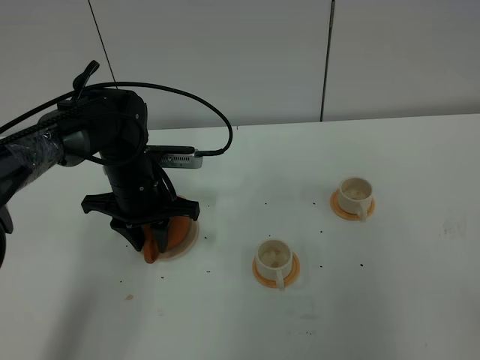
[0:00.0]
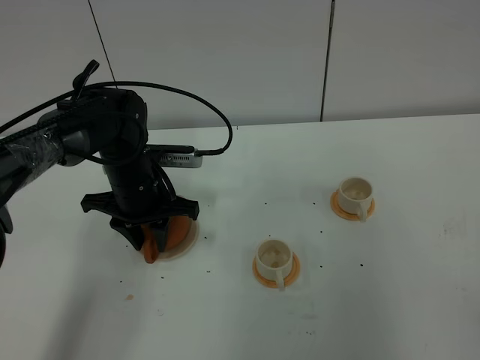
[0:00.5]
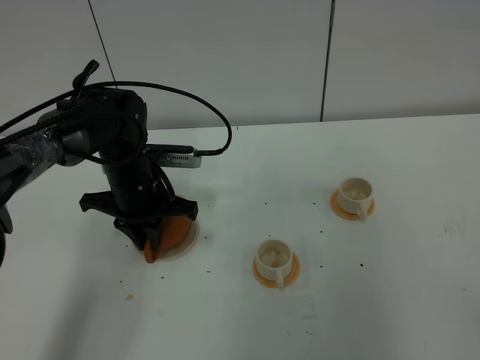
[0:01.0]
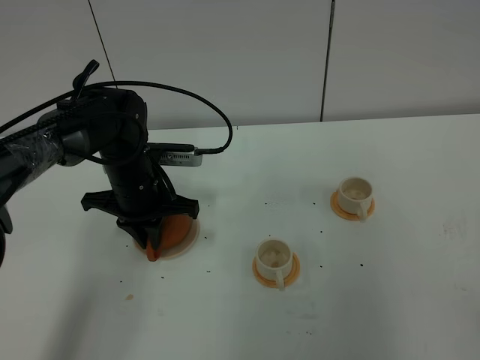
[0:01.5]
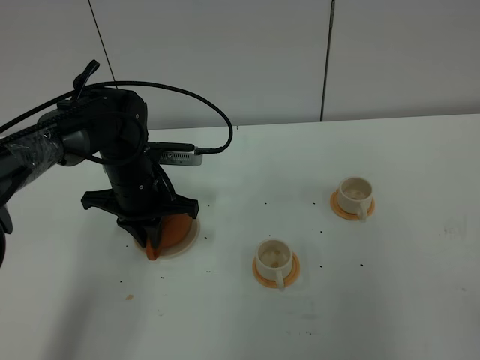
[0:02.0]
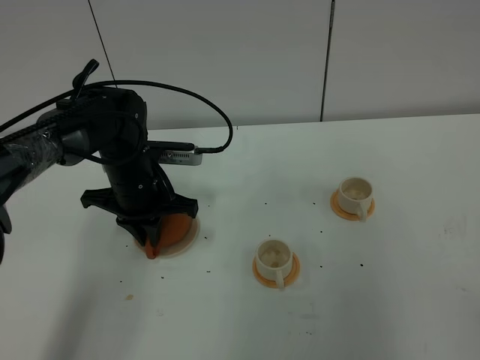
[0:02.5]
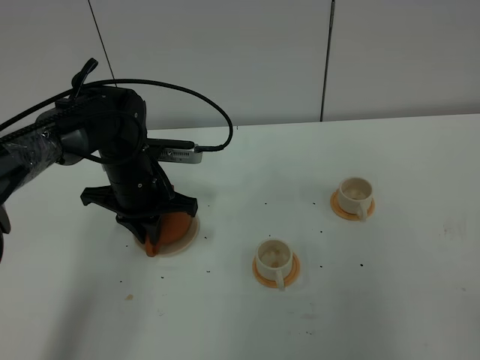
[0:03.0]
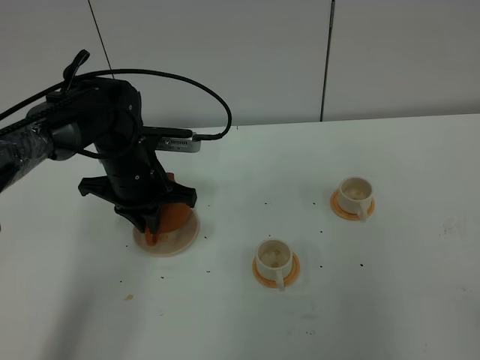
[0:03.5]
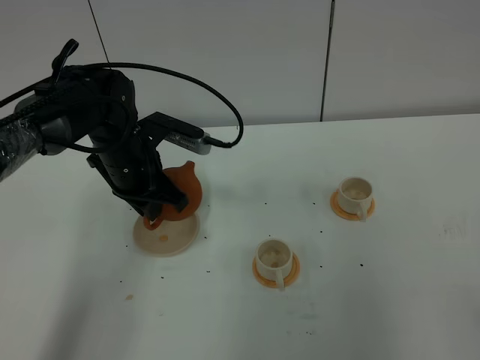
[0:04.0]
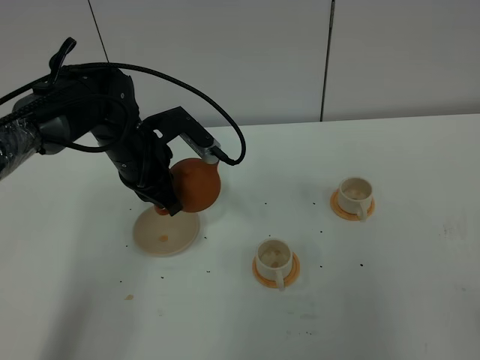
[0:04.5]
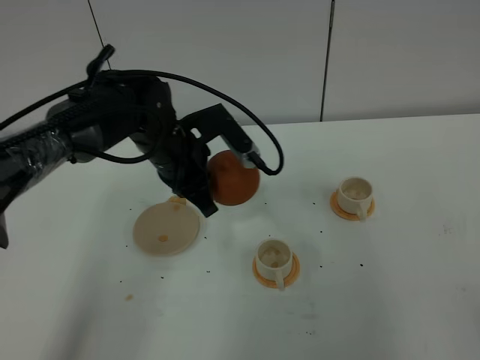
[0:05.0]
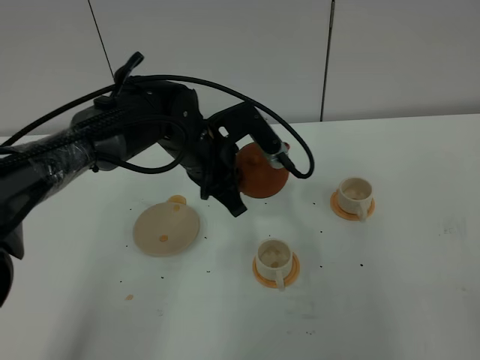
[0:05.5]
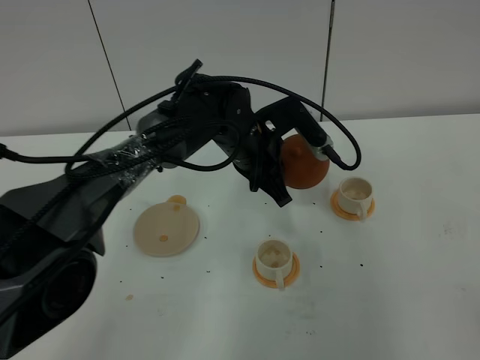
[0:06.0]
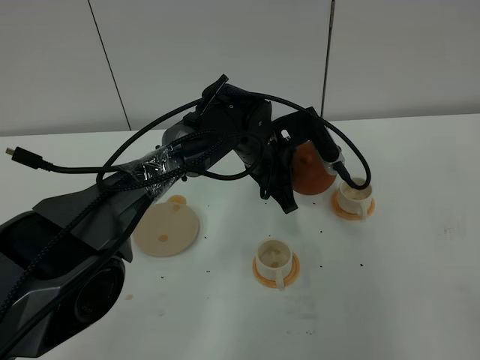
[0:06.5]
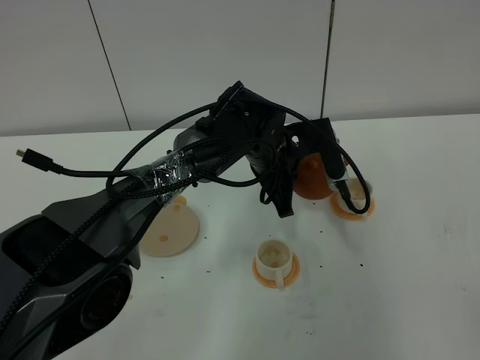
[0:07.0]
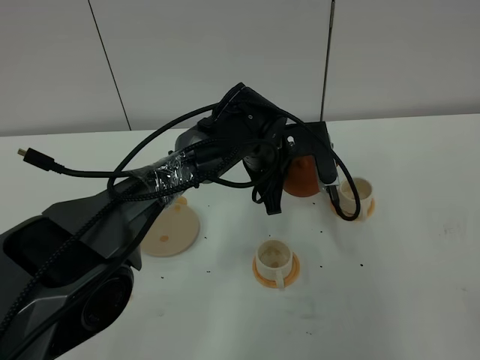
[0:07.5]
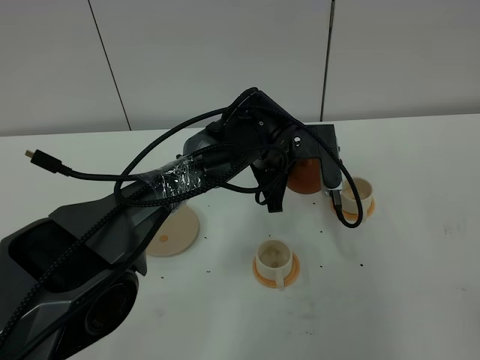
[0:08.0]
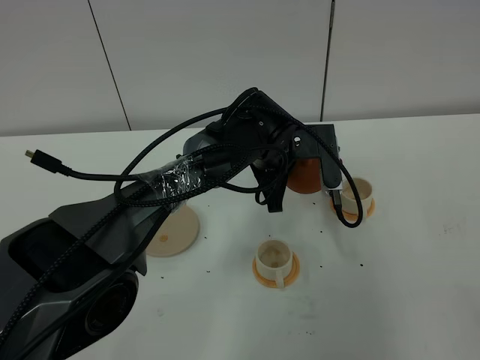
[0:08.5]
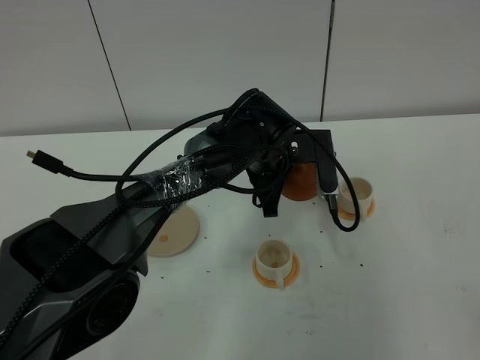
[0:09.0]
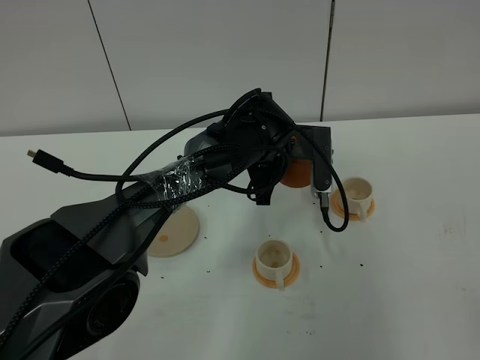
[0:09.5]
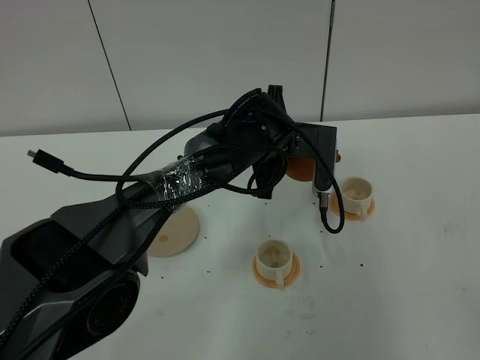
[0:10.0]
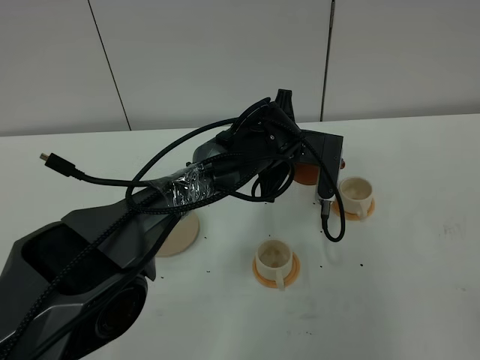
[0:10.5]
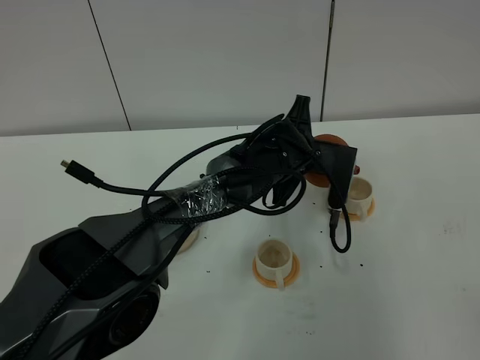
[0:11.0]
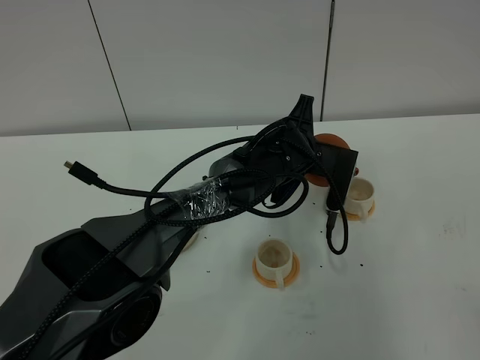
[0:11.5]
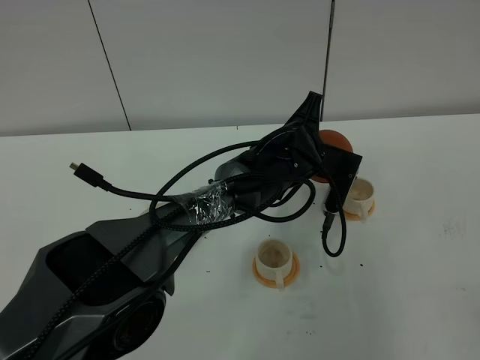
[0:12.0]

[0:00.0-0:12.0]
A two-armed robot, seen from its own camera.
Task of the whole recording: grasp the brown teapot and pour the tea into the two white teacups one by one, put the brown teapot back in its original place.
Step, 0:00.0 to 0:03.5: Pick up the teapot with the left gripper.
0:00.0 to 0:02.0: The left gripper closes up.
0:04.0 to 0:06.0: The left gripper is displaced to the right by about 15 cm.
0:08.0 to 0:10.0: The grippers stay close to where they were, moving slightly.
0:10.0 to 0:12.0: There are only small adjustments of the grippers.

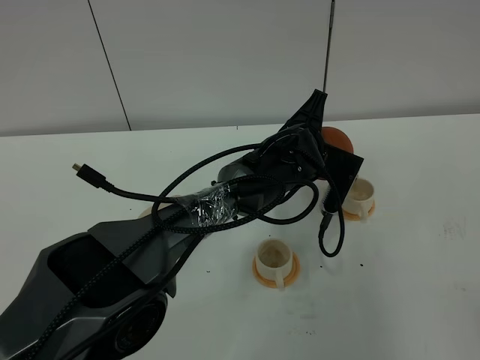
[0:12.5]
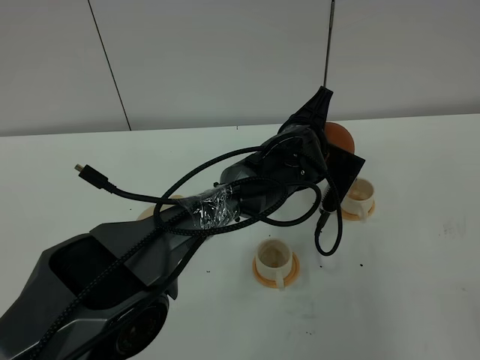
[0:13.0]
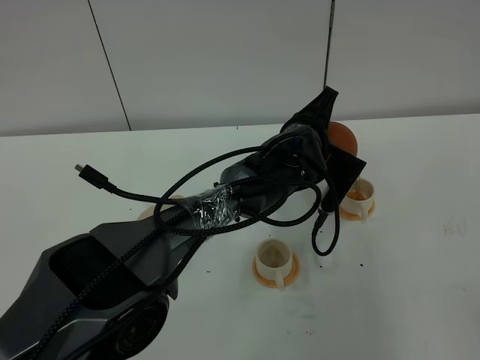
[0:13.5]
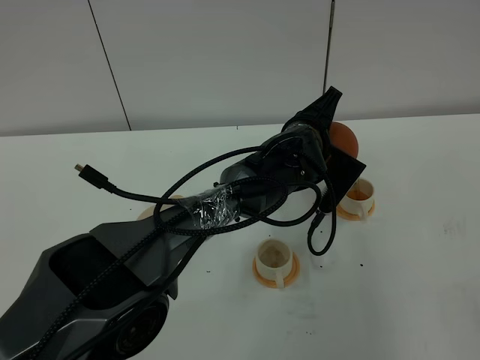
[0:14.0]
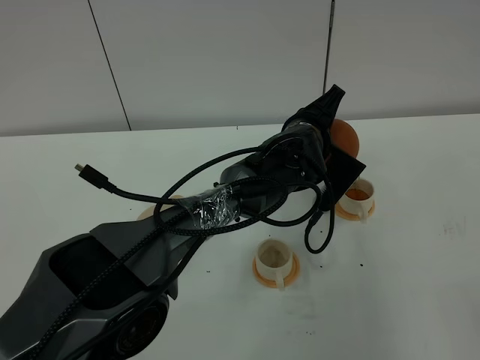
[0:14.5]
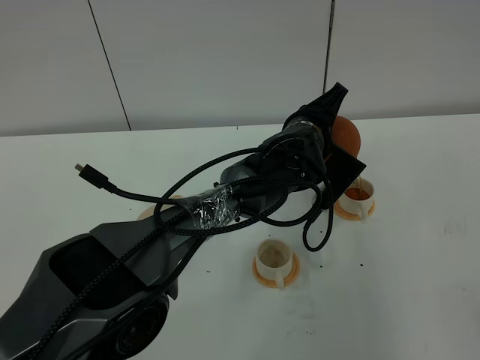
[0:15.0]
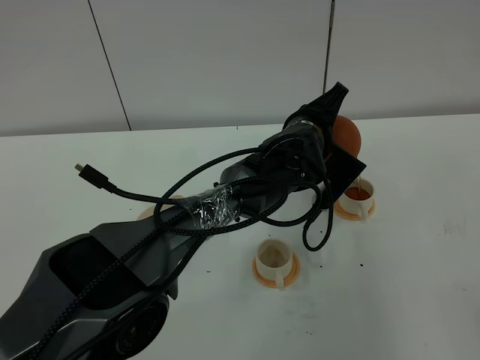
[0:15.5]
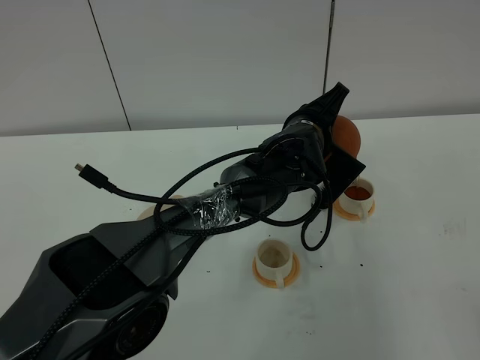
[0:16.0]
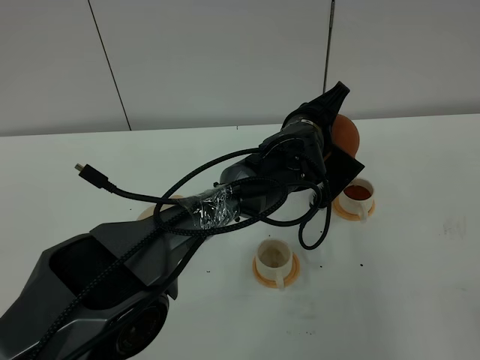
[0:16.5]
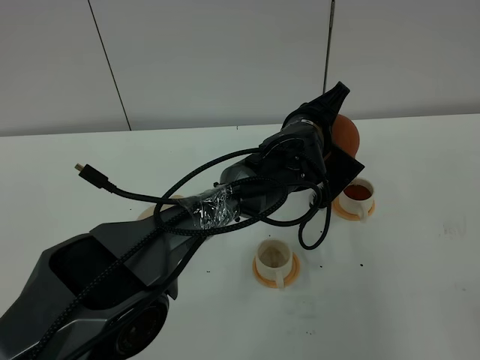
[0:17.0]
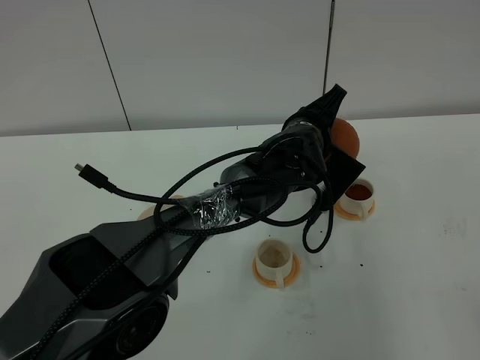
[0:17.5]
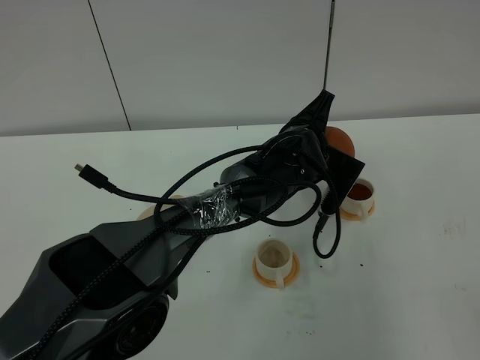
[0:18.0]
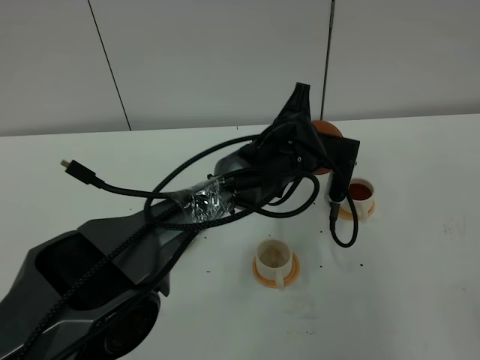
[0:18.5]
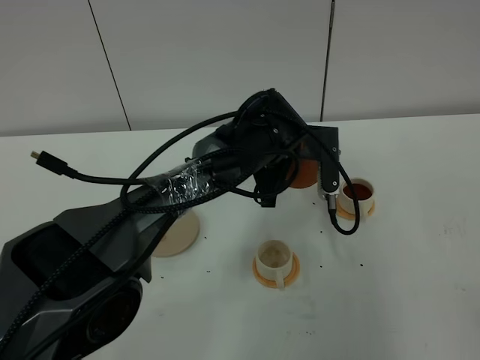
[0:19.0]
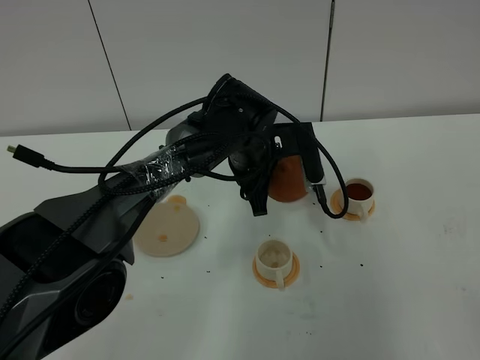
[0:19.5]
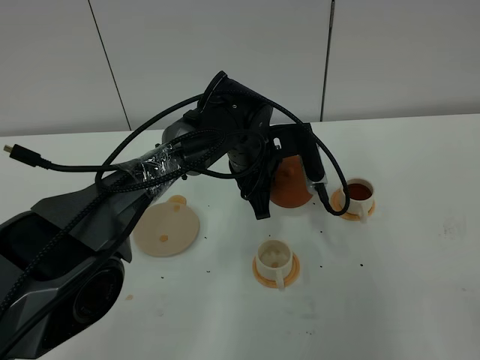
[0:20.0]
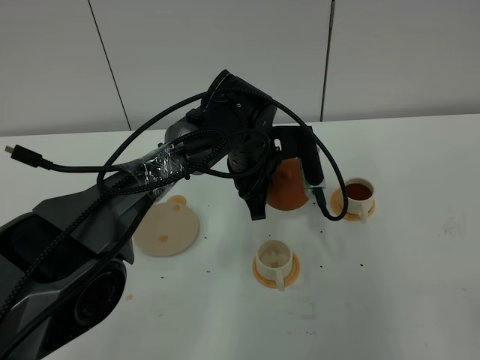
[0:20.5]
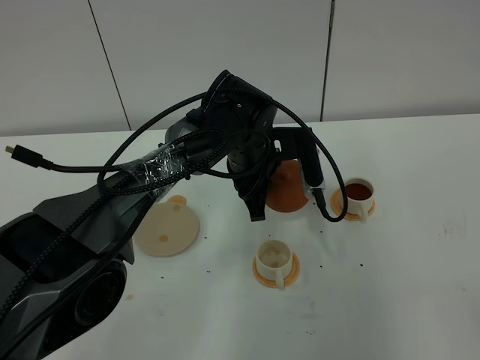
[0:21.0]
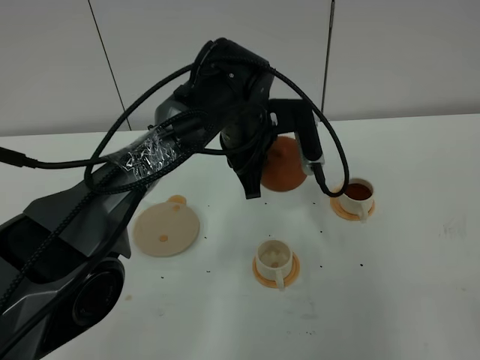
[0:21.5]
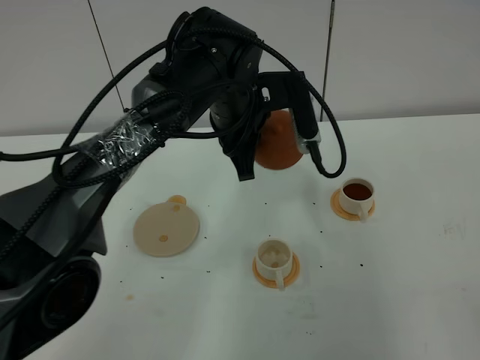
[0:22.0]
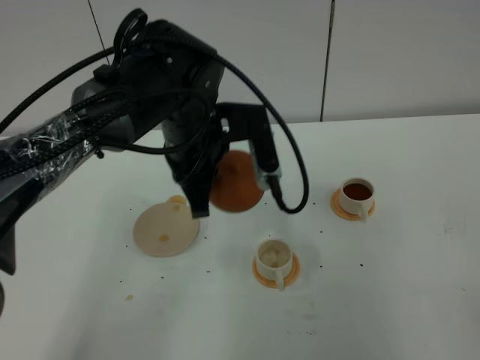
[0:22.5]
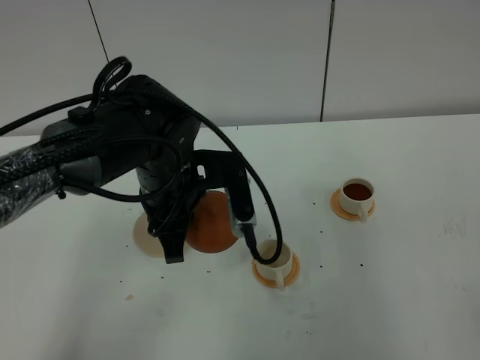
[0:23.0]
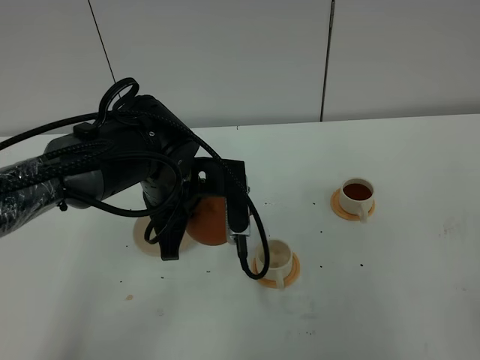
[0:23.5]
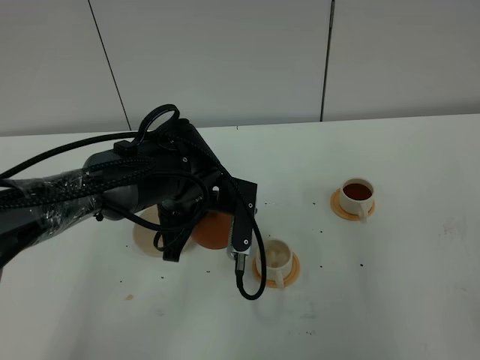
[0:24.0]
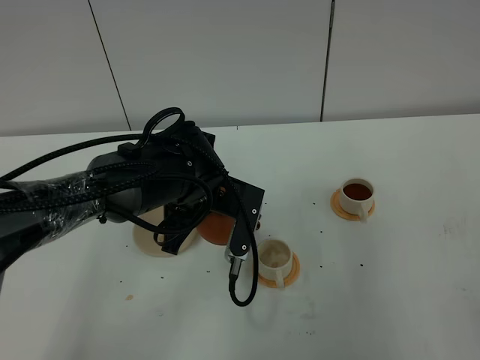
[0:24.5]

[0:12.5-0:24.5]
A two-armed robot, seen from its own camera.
Task of the whole recording: grasp the brown teapot and pour the tea into the two white teacups one by one, put the brown teapot back in its original place.
0:12.5 to 0:14.5: There are only small adjustments of the grippers.
0:14.5 to 0:16.5: Both grippers stay about where they are.
0:18.5 to 0:20.5: The left gripper goes about 5 cm to the left.
0:20.5 to 0:22.5: The left gripper is displaced upward, backward and to the left by roughly 10 cm.
0:22.5 to 0:24.5: The left gripper shifts about 5 cm downward.

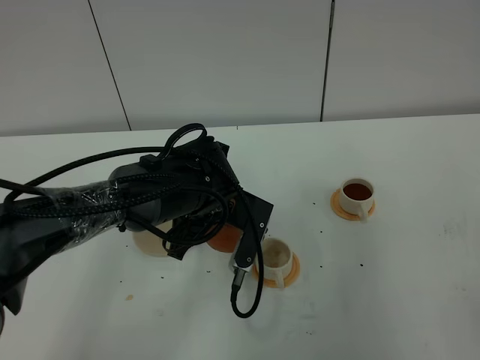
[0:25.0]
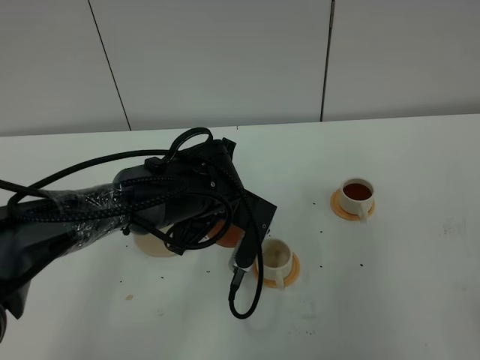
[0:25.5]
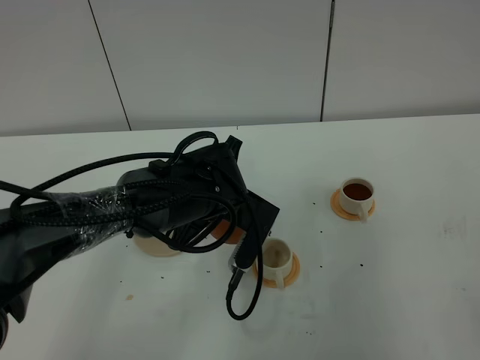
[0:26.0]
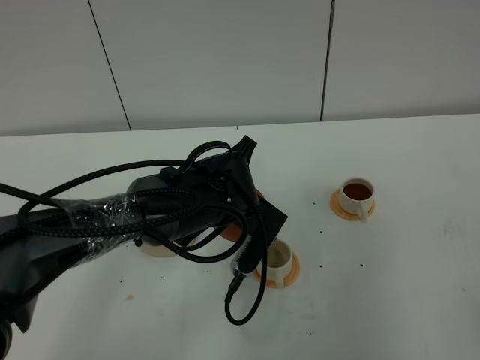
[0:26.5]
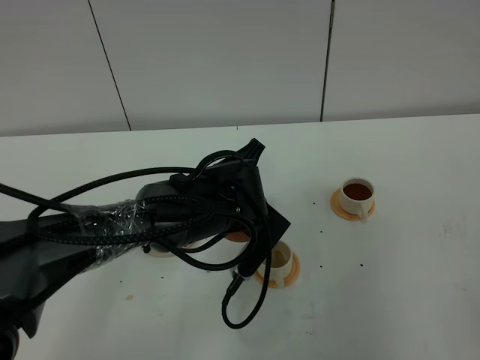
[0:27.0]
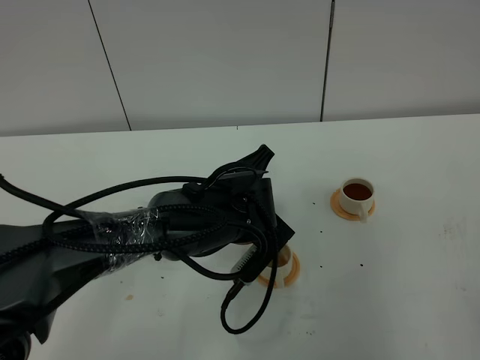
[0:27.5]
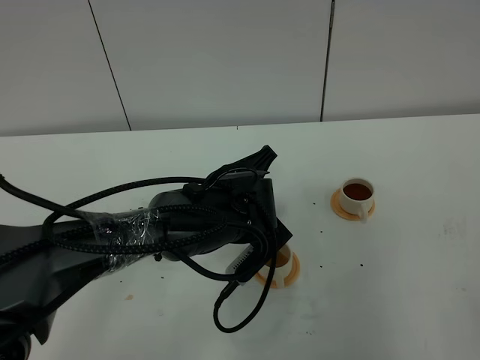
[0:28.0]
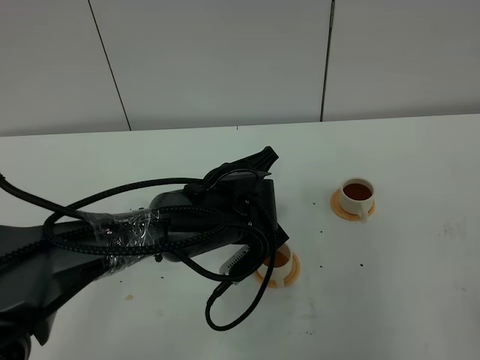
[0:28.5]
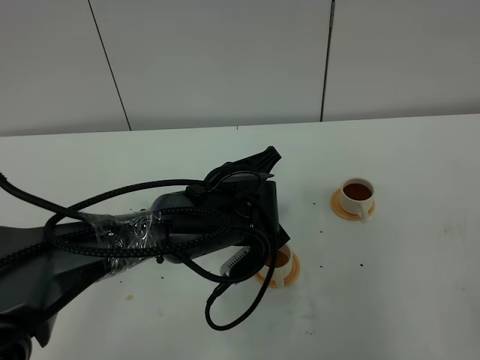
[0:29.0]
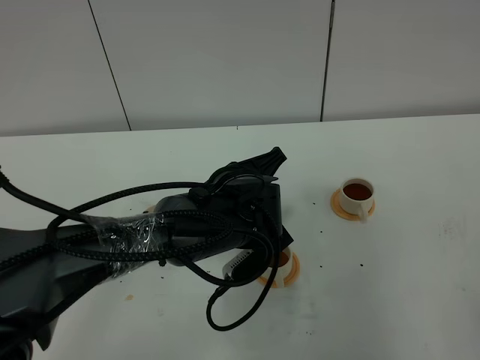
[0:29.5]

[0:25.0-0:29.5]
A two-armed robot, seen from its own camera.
Task of the whole recording: grasp the brown teapot and pour the tea into the two white teacups one by one, put the brown teapot back in its original place.
0:25.0 to 0:27.0: The grippers make only small movements.
0:27.0 to 0:29.5: The grippers move only a little.
